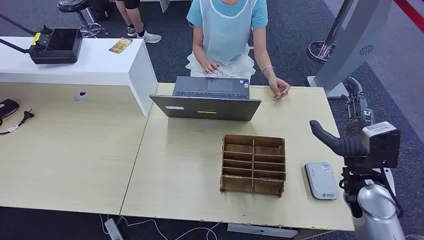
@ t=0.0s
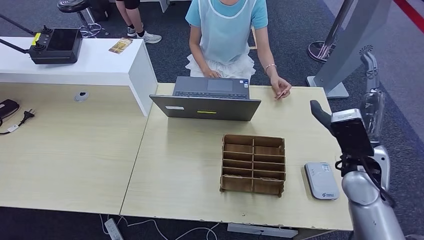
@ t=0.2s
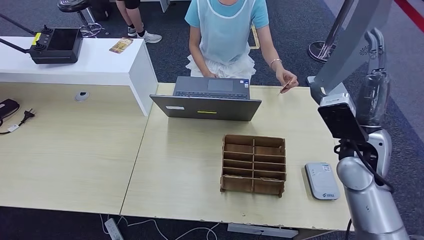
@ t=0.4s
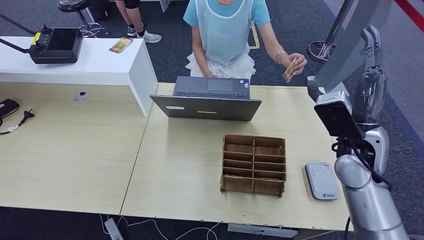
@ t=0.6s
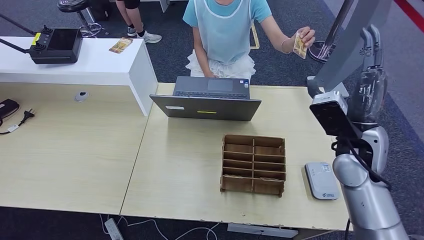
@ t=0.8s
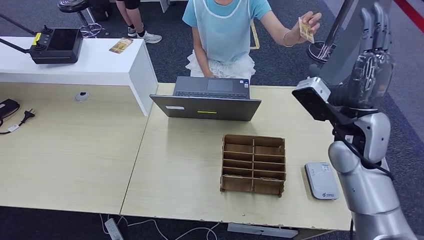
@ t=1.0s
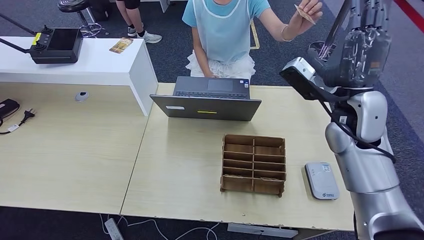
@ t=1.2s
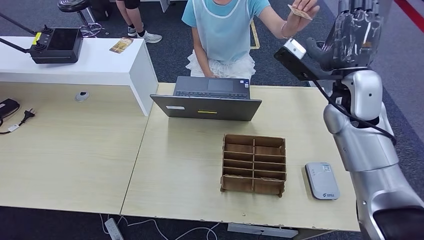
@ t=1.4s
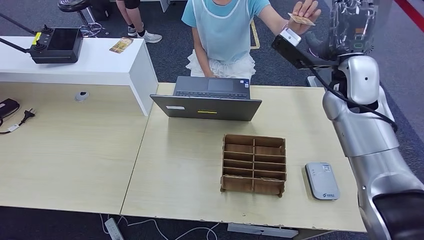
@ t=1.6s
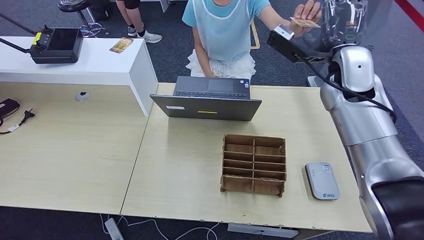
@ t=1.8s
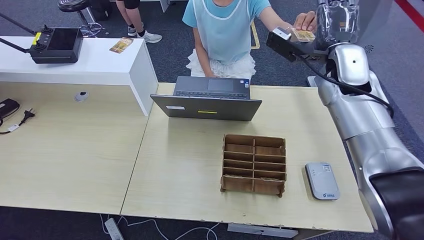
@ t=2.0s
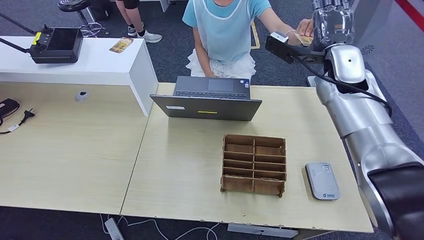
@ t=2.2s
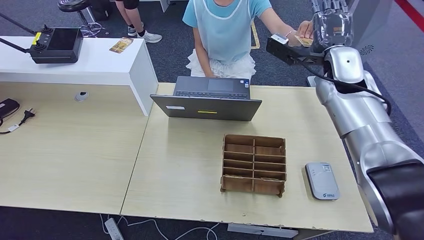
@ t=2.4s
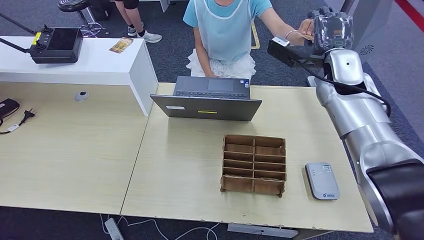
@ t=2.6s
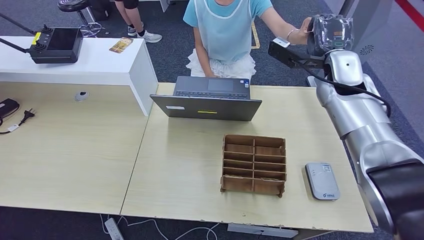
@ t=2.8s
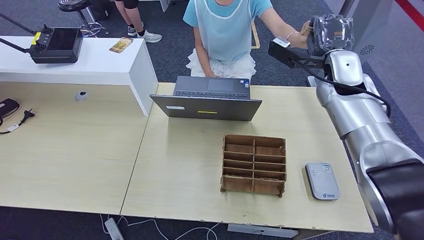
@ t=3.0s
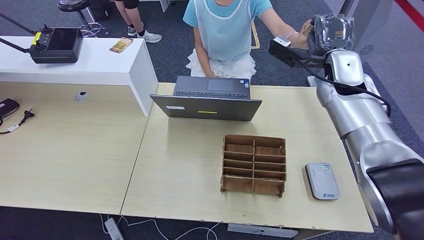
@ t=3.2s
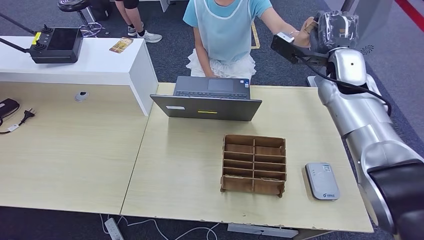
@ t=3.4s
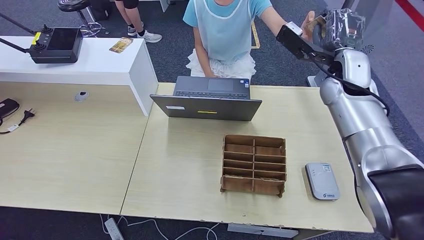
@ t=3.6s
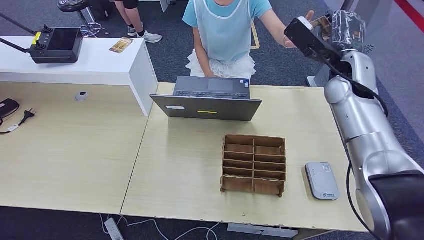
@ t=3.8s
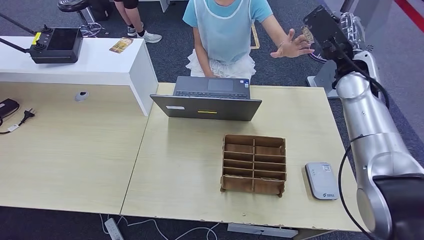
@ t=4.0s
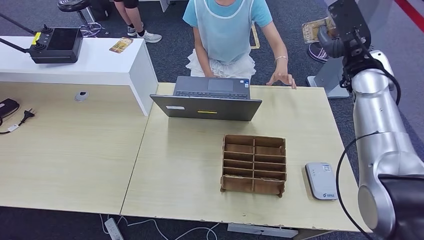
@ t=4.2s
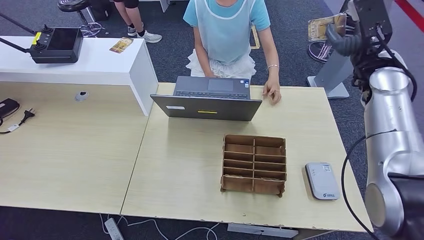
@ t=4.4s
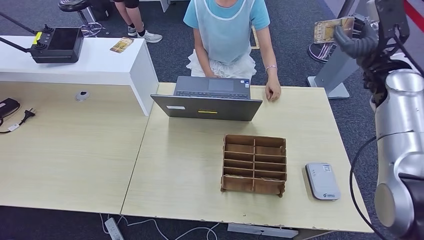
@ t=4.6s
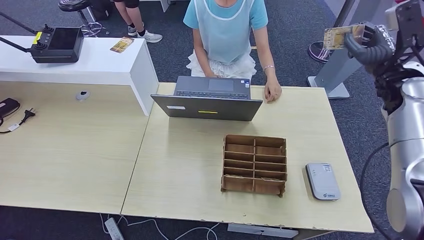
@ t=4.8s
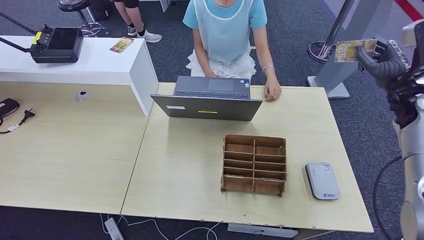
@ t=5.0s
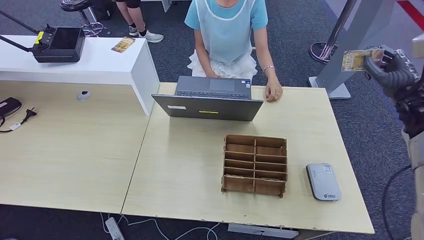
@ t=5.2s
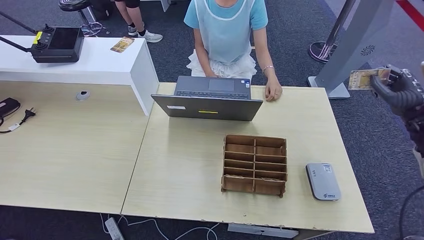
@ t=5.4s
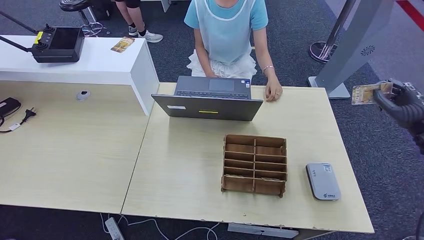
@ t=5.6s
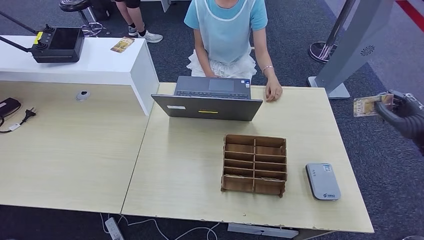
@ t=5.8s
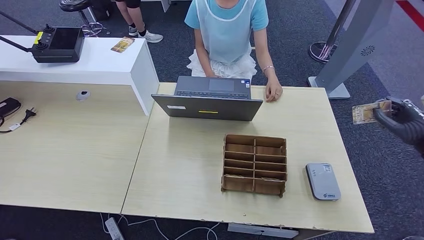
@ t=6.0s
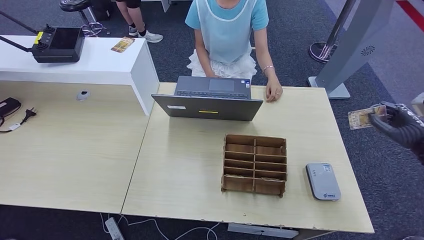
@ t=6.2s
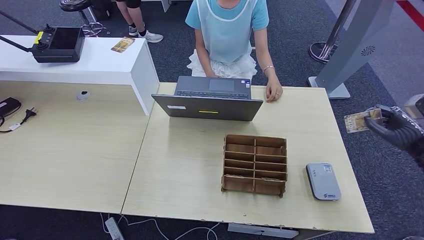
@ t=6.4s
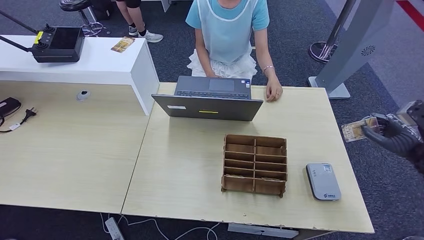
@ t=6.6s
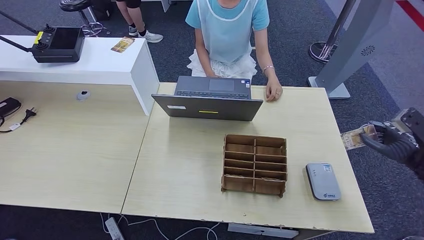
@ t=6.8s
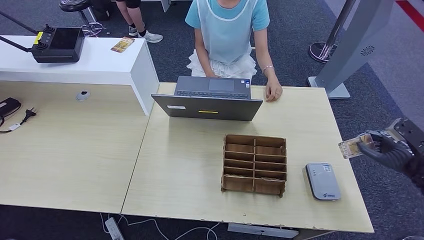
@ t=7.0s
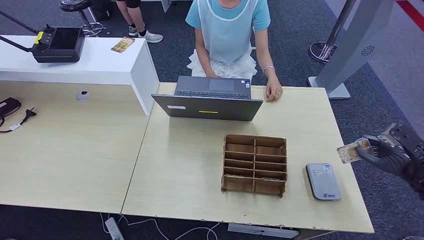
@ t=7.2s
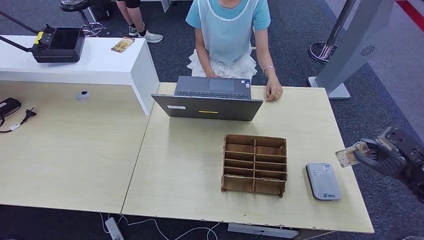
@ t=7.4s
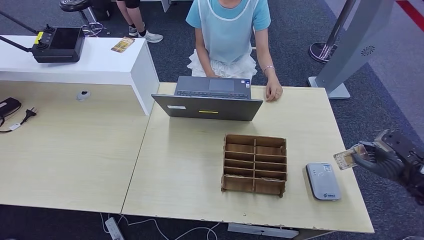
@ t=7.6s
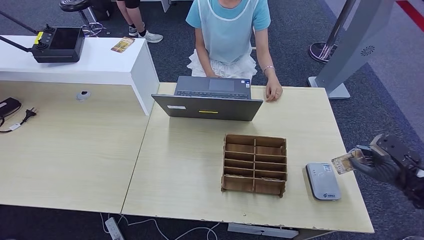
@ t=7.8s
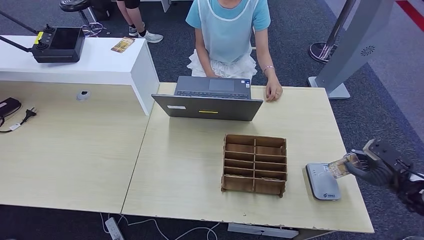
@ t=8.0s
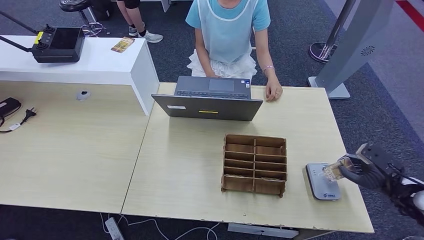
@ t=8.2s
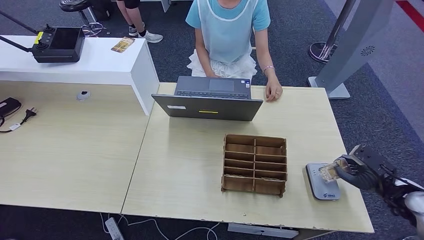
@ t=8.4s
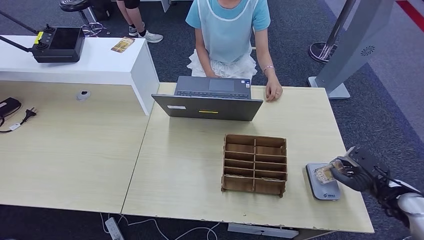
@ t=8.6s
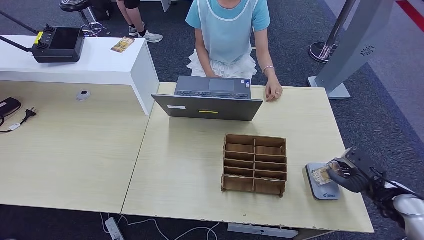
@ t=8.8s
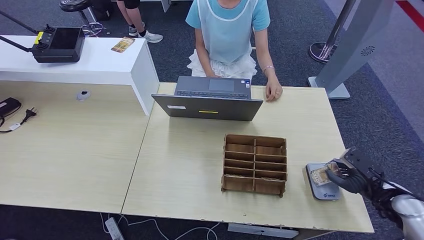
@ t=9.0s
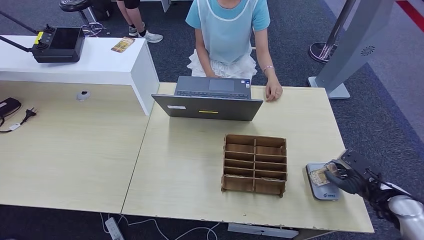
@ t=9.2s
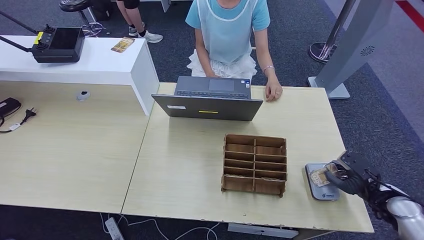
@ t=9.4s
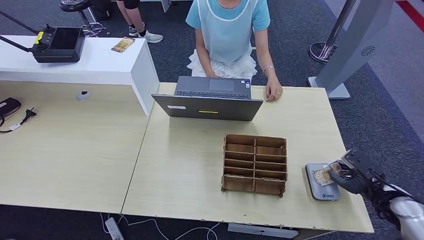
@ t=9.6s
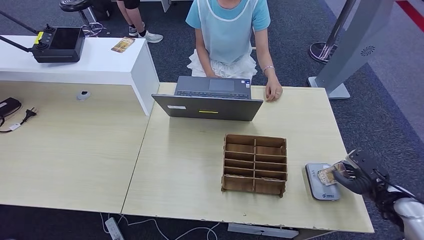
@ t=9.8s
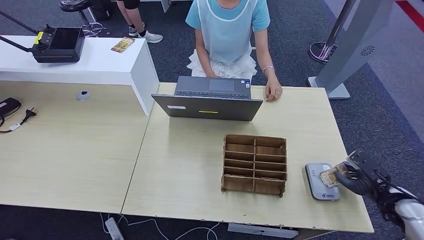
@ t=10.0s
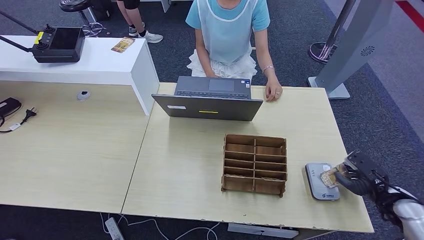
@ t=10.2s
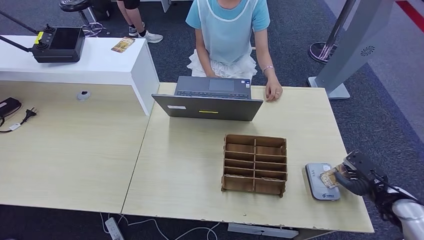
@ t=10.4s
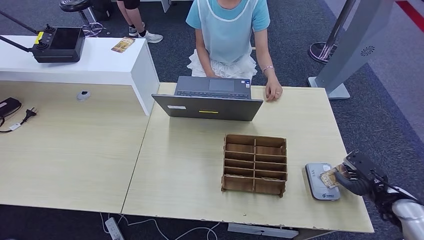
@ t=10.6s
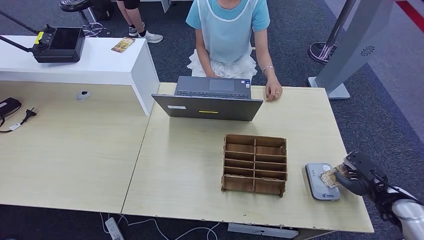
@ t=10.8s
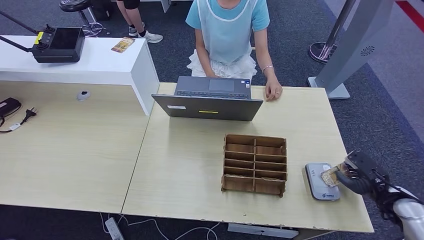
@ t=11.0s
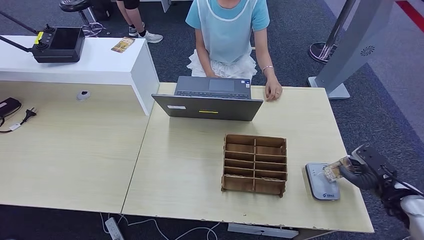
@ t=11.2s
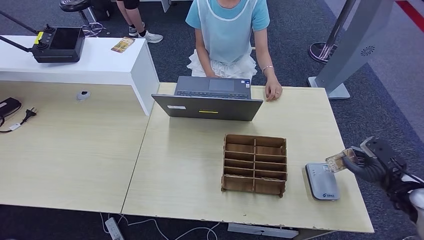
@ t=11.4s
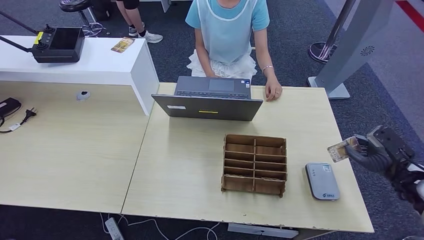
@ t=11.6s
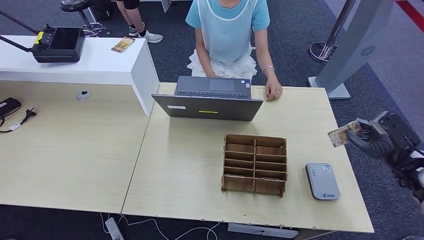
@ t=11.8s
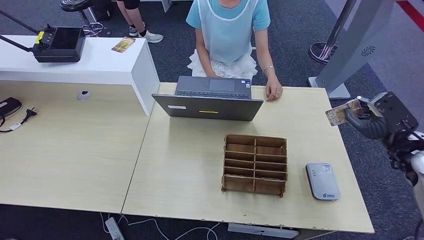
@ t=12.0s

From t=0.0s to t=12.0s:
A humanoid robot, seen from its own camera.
Step, from t=0.0s to t=4.4s: Take the ID card from the person's hand.
Step, from t=4.6s to t=11.6s: Place the ID card on the card reader.
From t=1.6s to t=3.0s: The right hand is displaced forward by roughly 5 cm.
From t=3.0s to t=4.4s: The right hand travels to the right by approximately 5 cm.
From t=4.4s to t=6.0s: The right hand travels to the right, backward and downward by some 25 cm.
From t=6.0s to t=7.6s: The right hand moves downward, about 5 cm.
From t=7.6s to t=9.0s: The right hand heads downward and to the left, covering some 10 cm.
From t=9.0s to t=10.4s: The hands move only a little.
From t=10.4s to t=12.0s: The right hand travels upward and forward by roughly 15 cm.

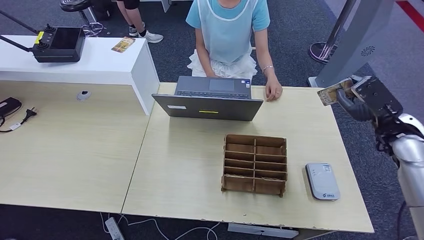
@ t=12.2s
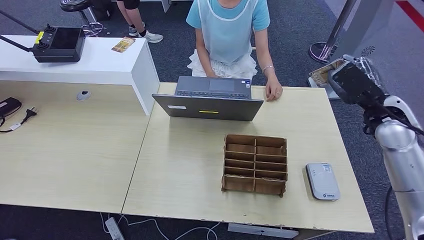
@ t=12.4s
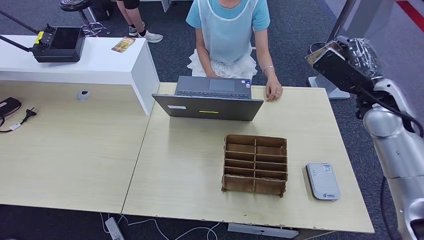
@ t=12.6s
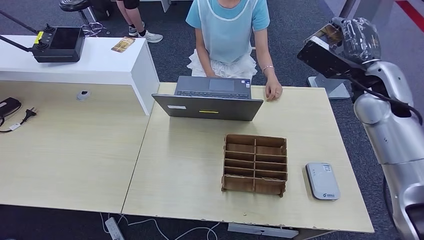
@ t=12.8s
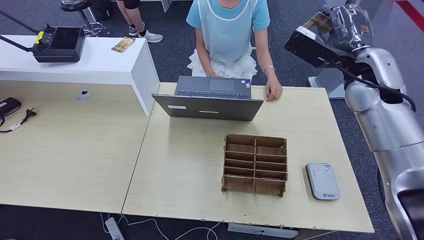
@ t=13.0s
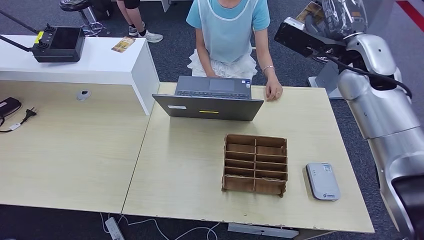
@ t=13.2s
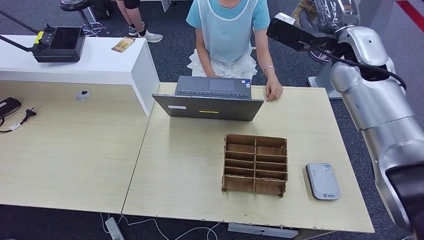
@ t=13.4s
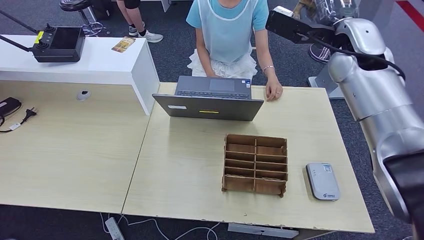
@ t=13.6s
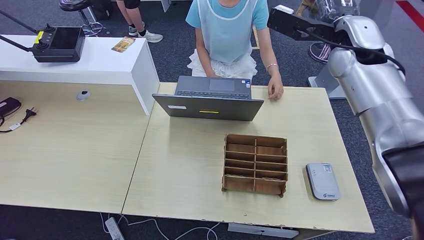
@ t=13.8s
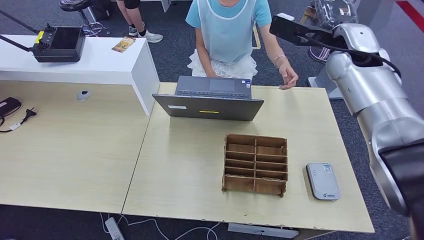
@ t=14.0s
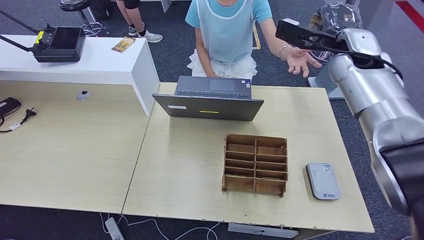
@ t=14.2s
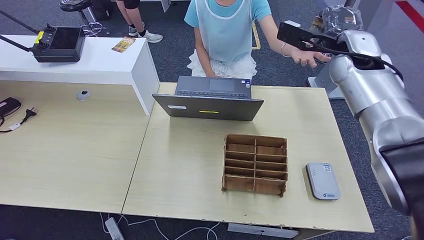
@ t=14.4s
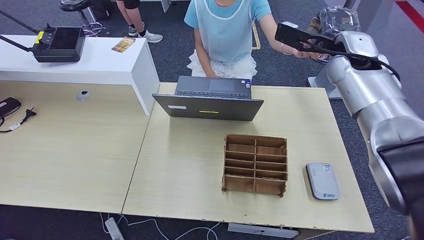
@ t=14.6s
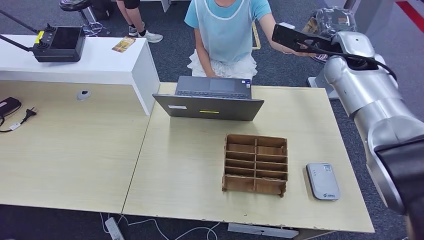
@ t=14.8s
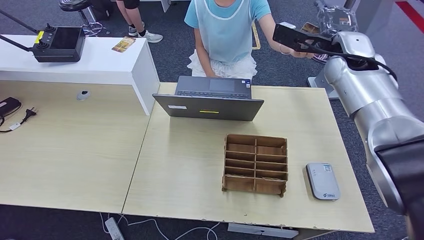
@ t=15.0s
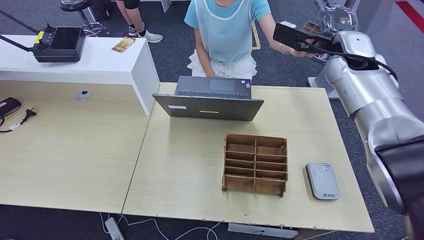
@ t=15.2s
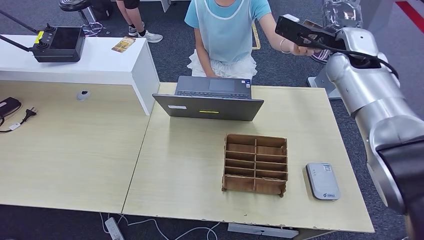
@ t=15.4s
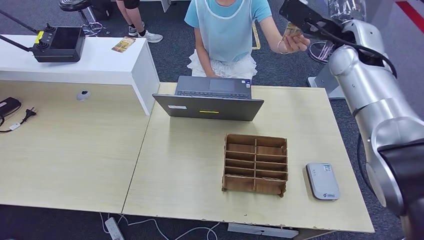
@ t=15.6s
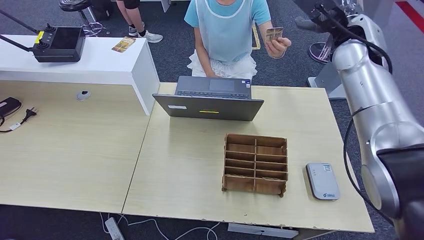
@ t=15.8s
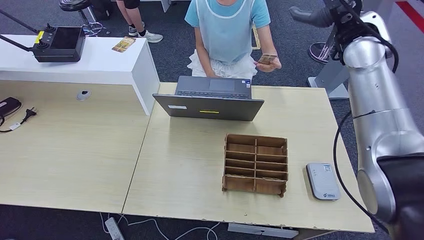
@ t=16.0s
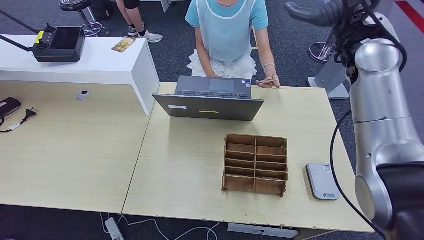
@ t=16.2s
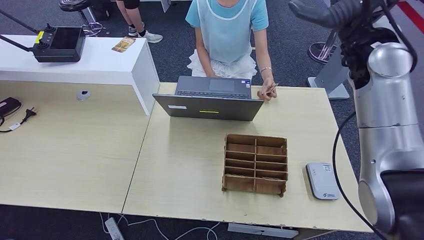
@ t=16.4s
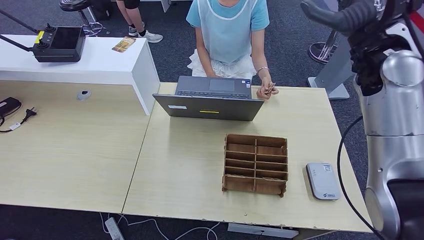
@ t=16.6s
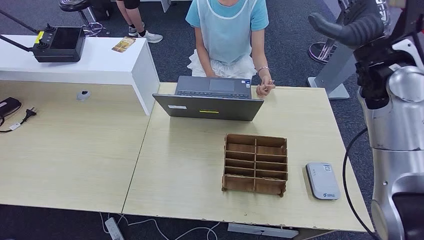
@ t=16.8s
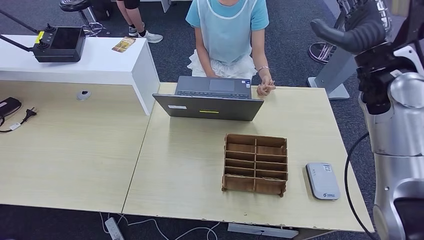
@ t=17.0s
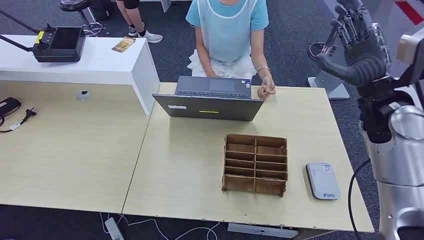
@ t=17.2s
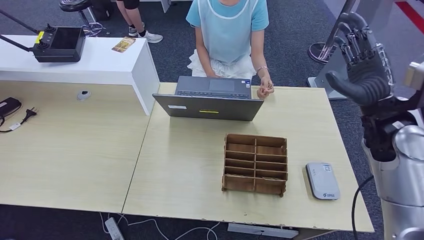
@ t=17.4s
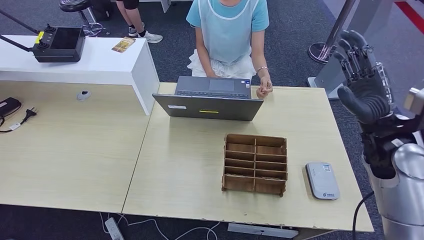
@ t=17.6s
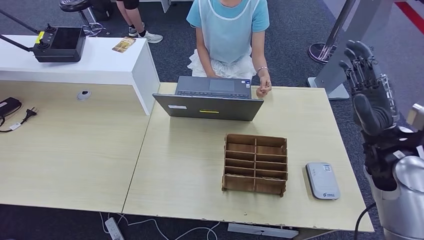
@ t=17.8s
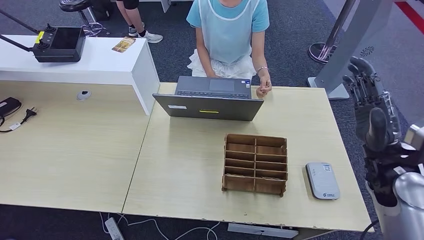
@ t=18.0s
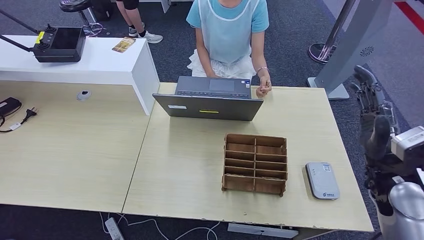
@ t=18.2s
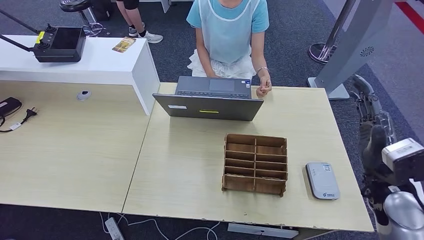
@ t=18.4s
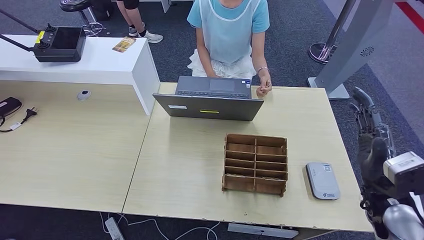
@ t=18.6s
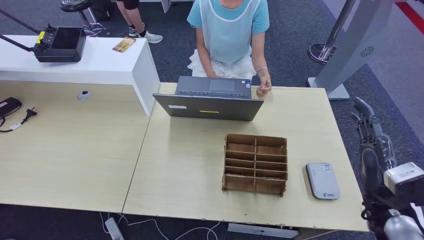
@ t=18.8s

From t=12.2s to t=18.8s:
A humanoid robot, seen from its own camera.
Step, from t=12.2s to t=18.2s: Hand the ID card to the person.
From t=12.2s to t=13.8s: The right hand goes about 25 cm upward, to the left and forward.
From t=13.8s to t=15.4s: The hands move only a little.
From t=15.4s to t=17.2s: The right hand shifts approximately 10 cm backward.
From t=17.2s to t=18.8s: The right hand travels backward and downward by about 20 cm.
